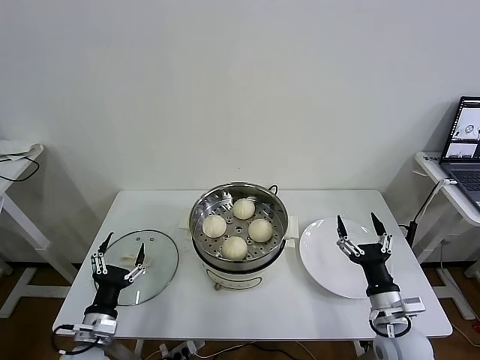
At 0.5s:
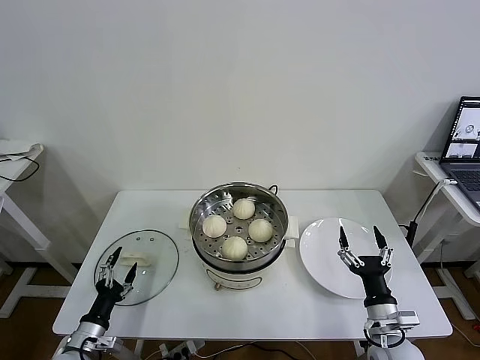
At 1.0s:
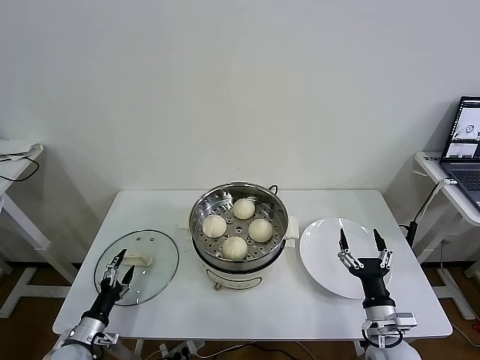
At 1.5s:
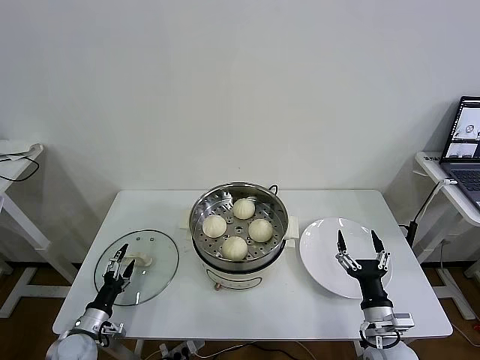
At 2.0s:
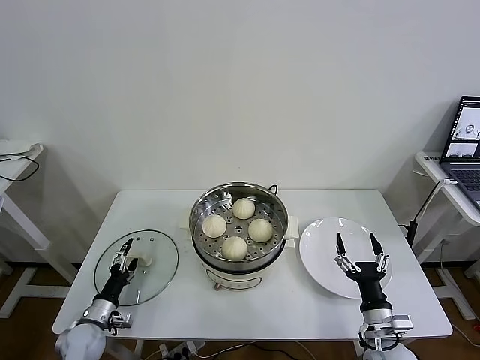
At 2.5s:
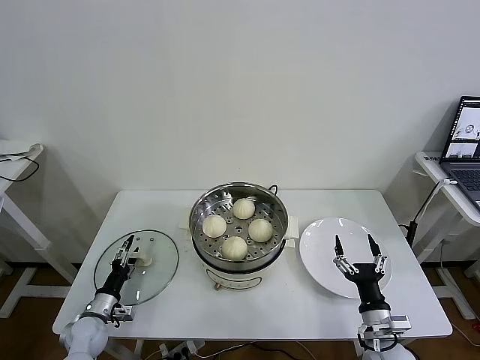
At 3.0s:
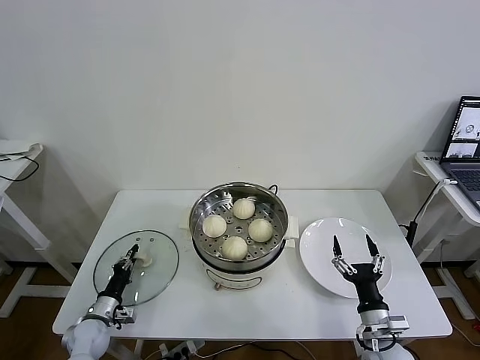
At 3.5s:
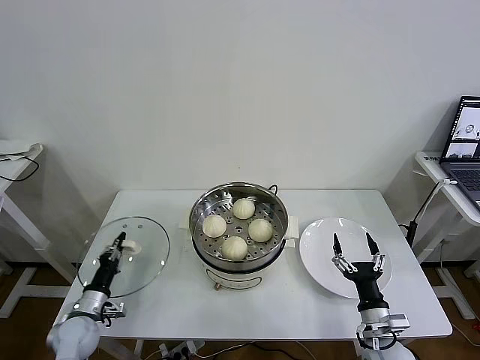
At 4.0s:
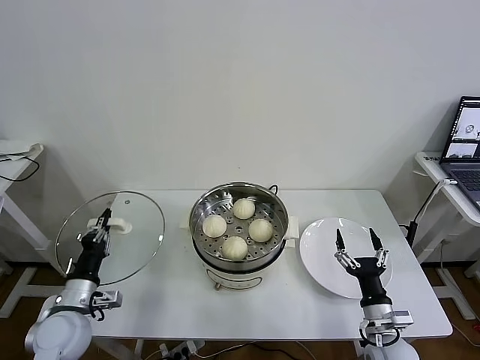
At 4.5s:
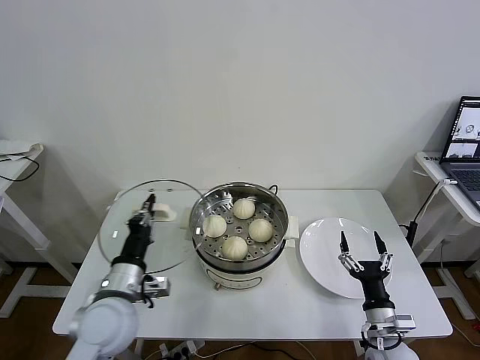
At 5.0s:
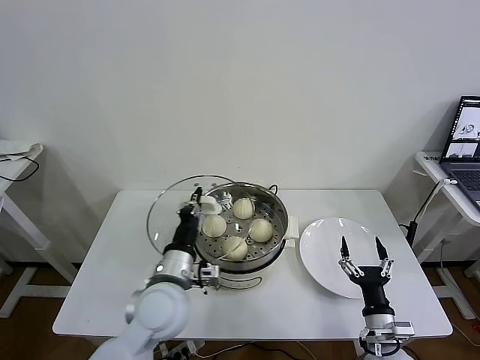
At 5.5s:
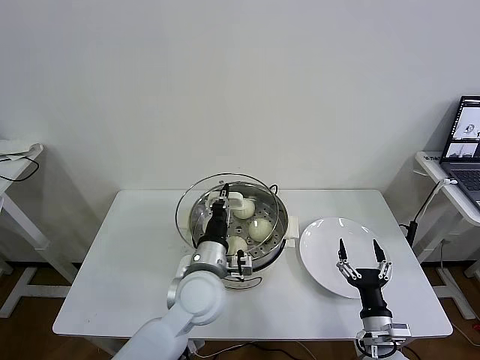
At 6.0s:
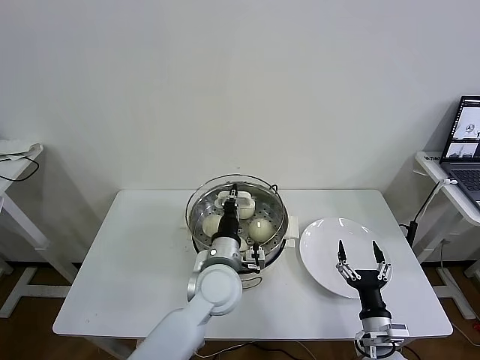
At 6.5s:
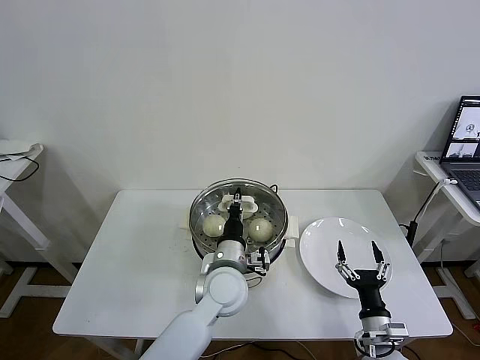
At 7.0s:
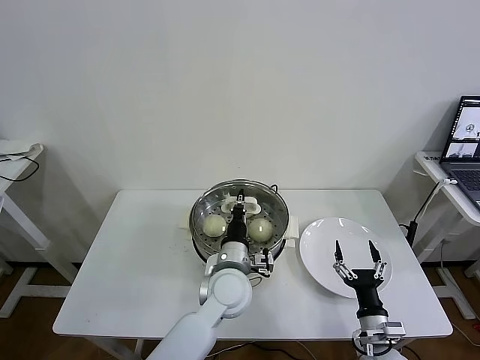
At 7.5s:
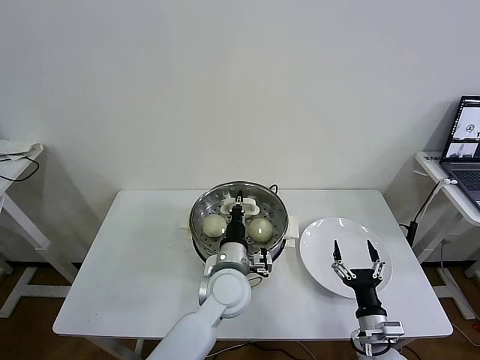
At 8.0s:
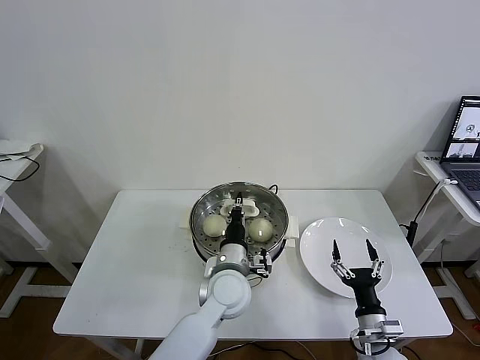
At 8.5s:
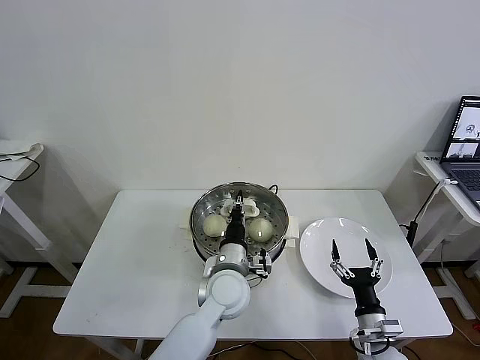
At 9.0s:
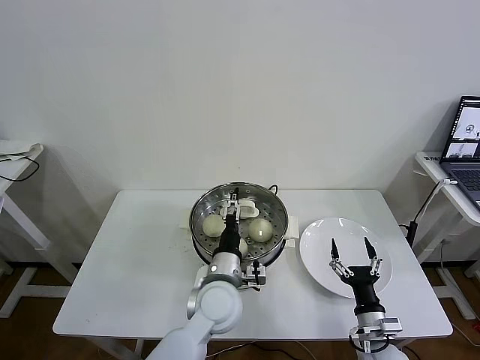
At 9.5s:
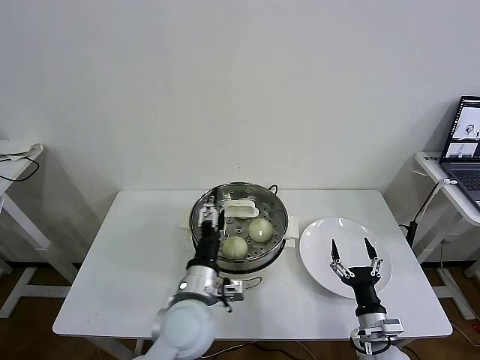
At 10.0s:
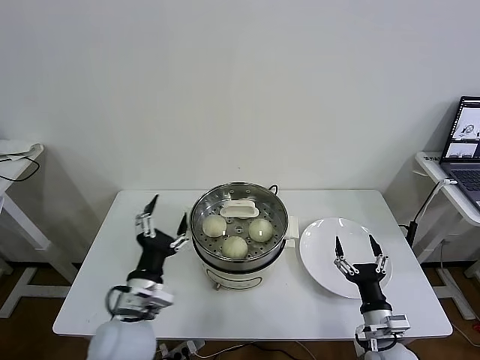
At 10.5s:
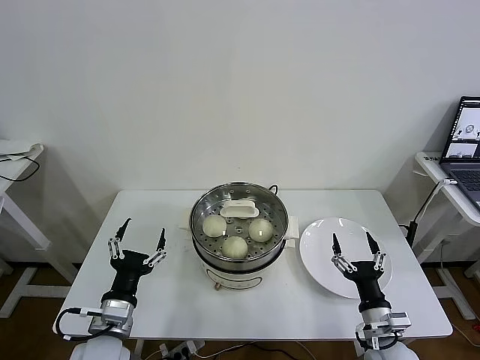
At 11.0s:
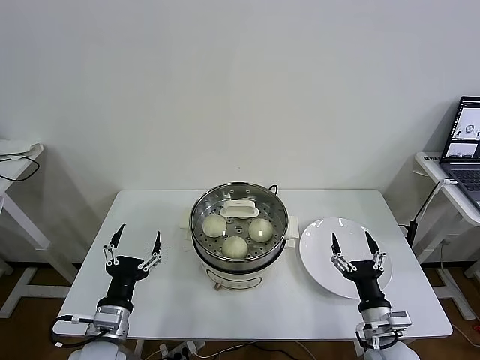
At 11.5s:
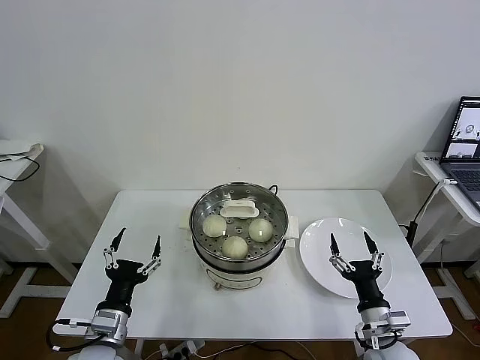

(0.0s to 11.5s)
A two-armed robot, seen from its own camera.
Task of the whole recording: take steamed baozi put them in steamer then cover it.
Step, 0.0s - 3.0s: Grasp the pot lid with left gripper.
Step, 3.5s - 9.0s: Place the pot lid on the steamer with left gripper.
0.0s - 2.0s: The right gripper travels downward by about 5 cm; the left gripper goes about 15 cm downward, to the left and forward.
2.0s - 4.0s: The left gripper travels upward by some 15 cm, and closes.
4.0s - 6.0s: The left gripper moves to the right, roughly 30 cm.
6.0s - 7.5s: There are only small adjustments of the grippers.
7.5s - 9.5s: The left gripper is displaced backward and to the left by some 10 cm, and opens.
9.5s - 11.5s: The left gripper travels to the left by approximately 20 cm.
